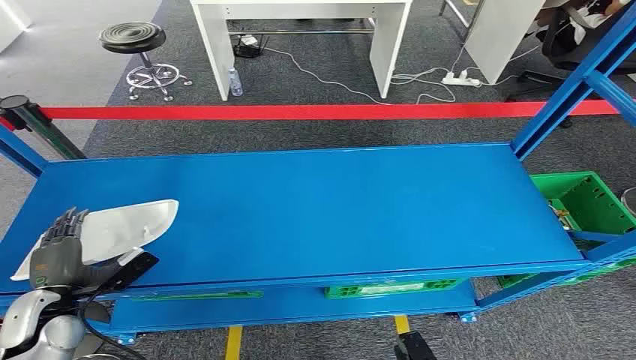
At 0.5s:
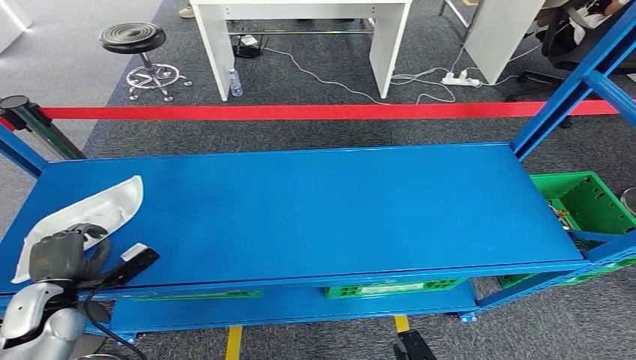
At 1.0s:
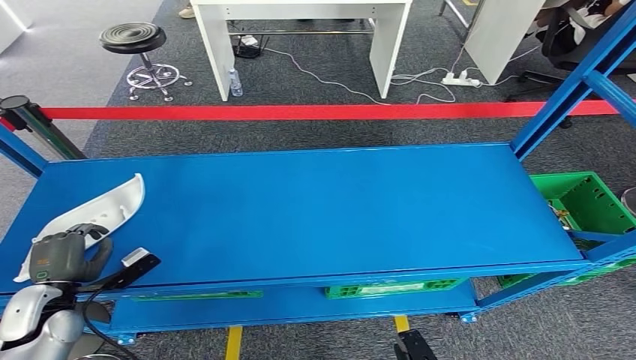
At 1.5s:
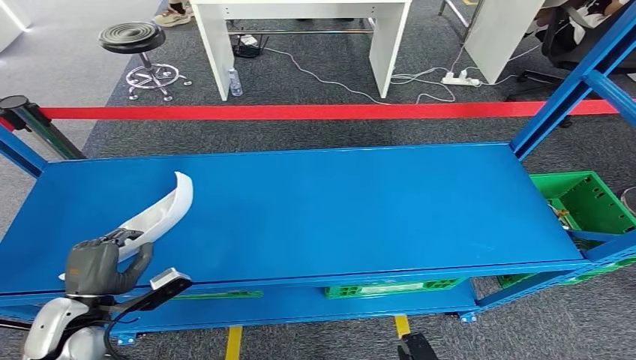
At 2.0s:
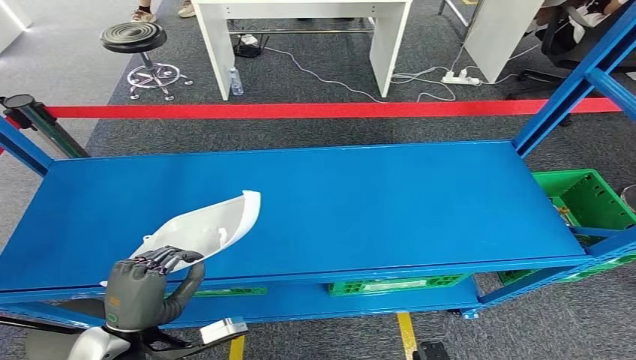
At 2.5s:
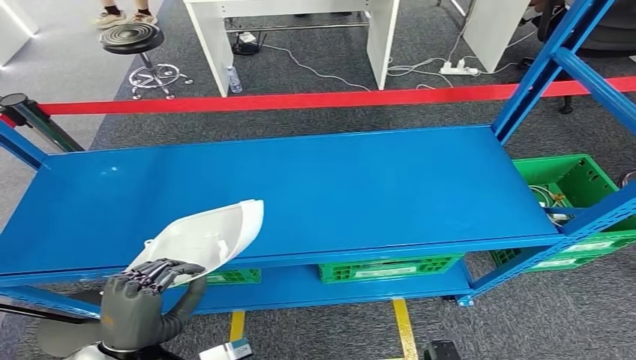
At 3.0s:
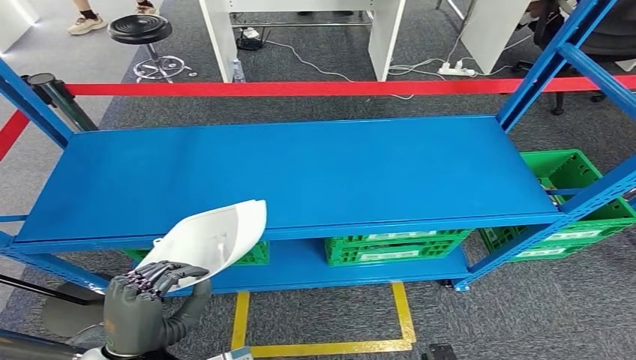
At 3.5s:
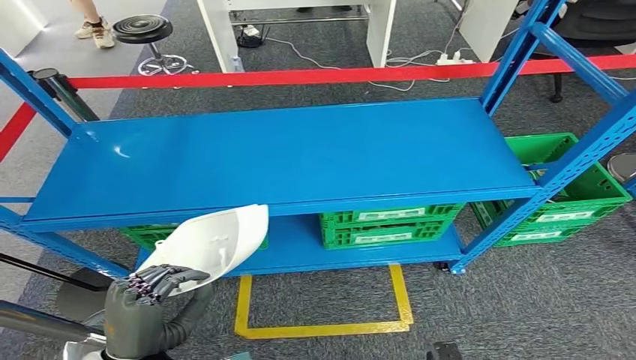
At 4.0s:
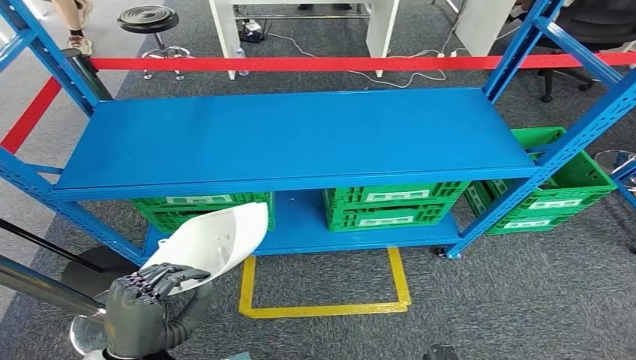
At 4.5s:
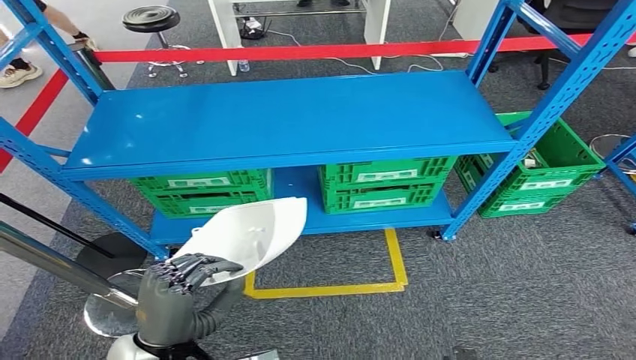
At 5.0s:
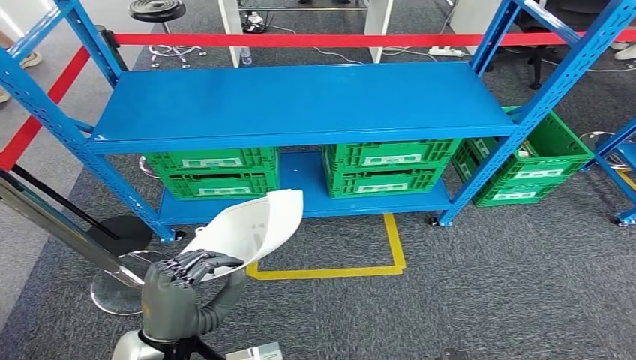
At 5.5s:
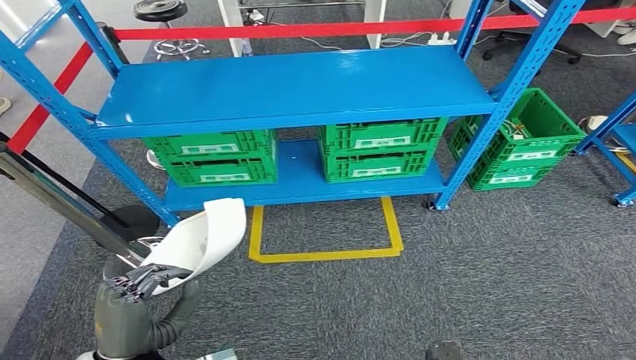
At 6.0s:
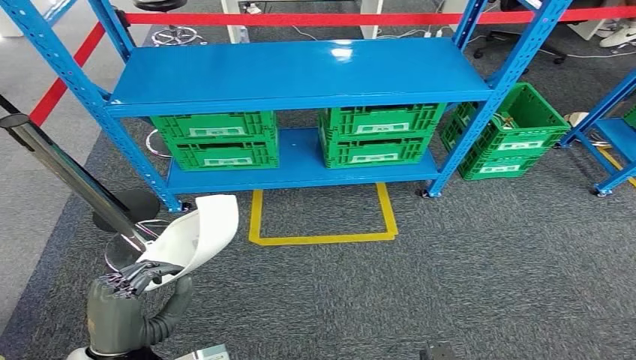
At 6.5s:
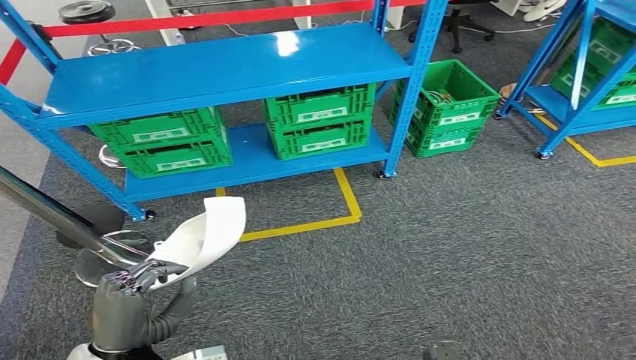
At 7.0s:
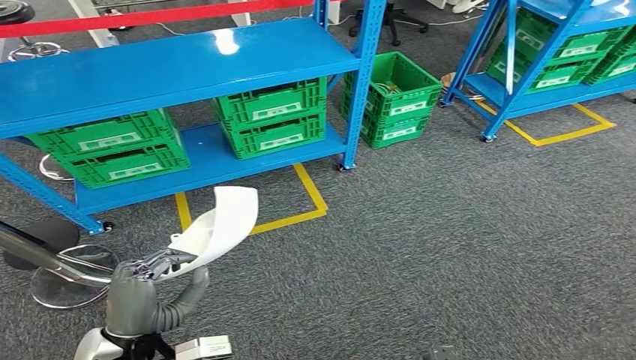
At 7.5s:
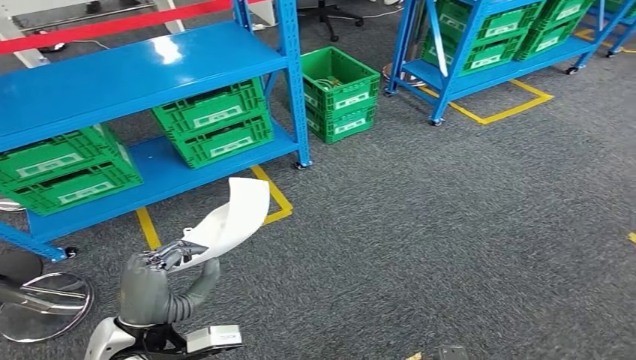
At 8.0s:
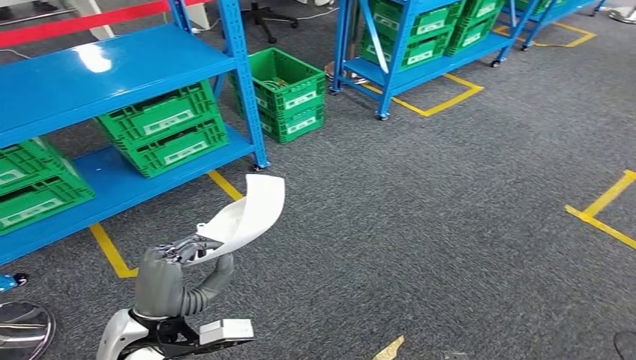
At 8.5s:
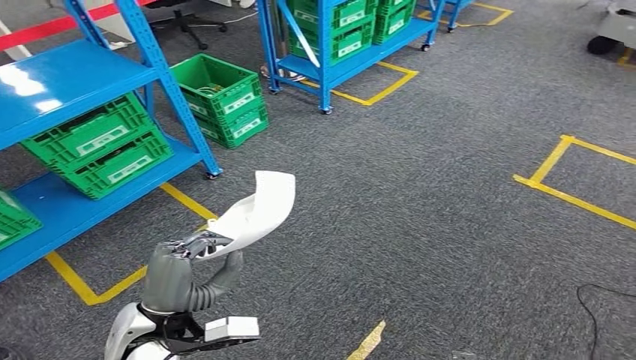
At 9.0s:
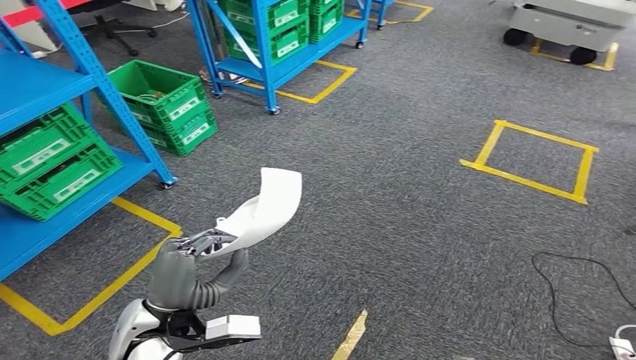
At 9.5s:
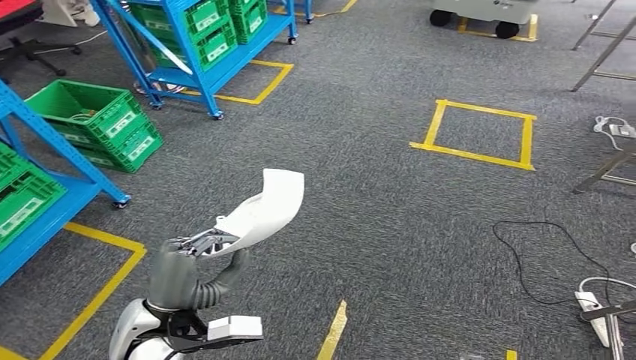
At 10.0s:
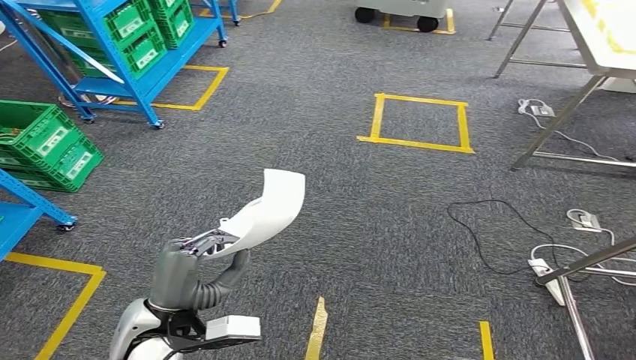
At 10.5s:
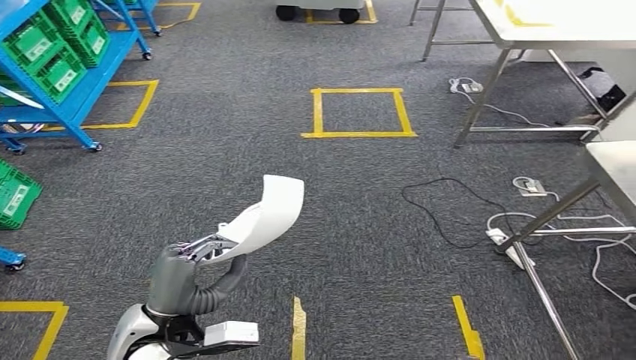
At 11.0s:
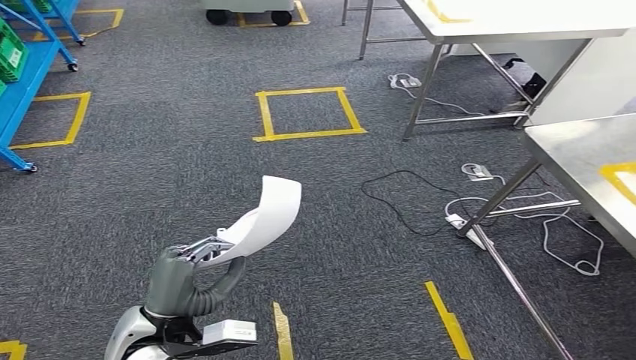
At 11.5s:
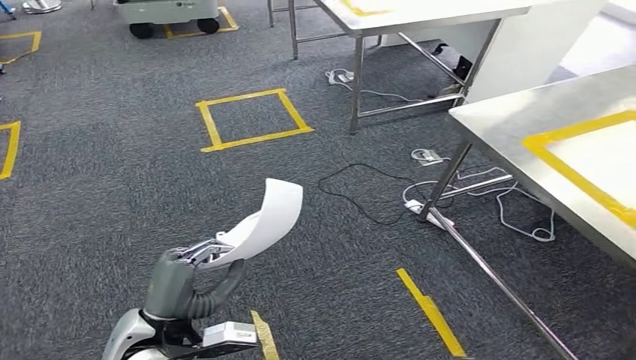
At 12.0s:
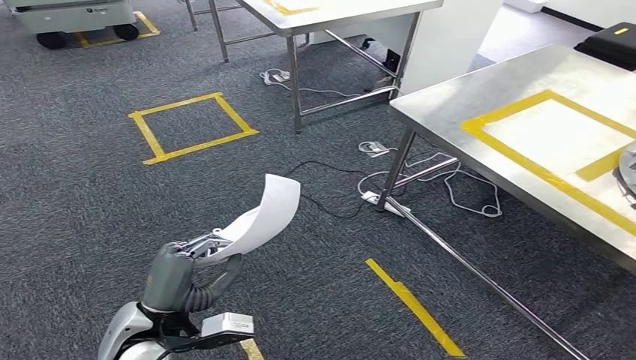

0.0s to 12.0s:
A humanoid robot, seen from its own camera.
Step, 0.0s to 4.0s: Pick up the small parts from the shelf.

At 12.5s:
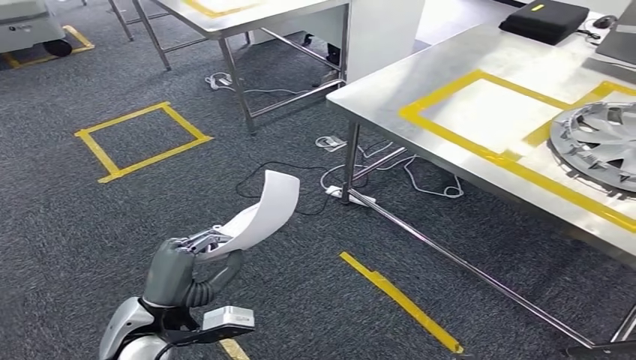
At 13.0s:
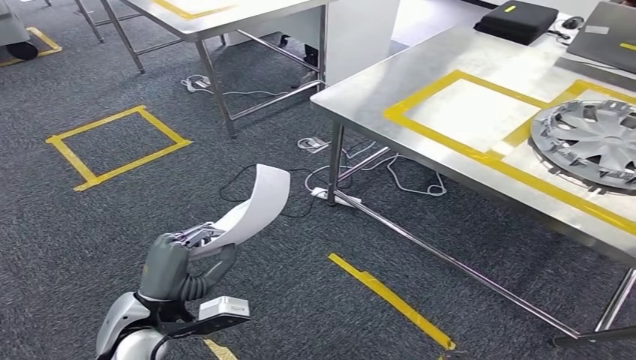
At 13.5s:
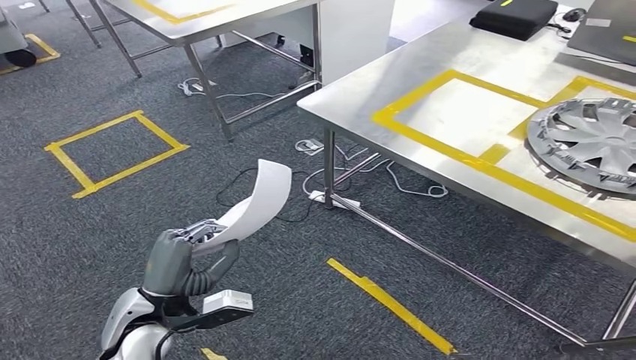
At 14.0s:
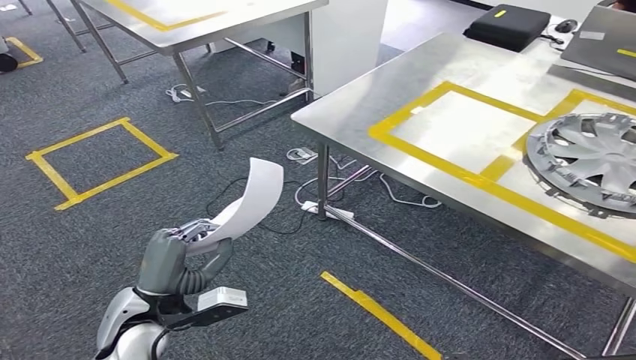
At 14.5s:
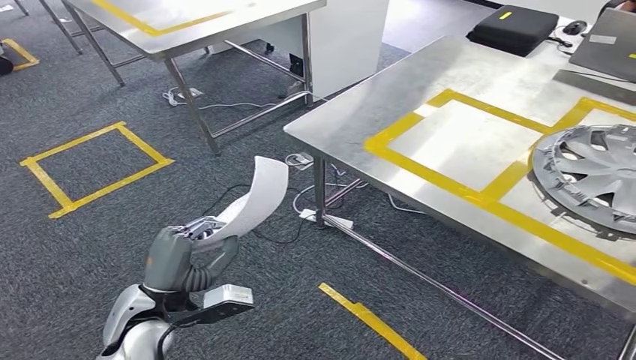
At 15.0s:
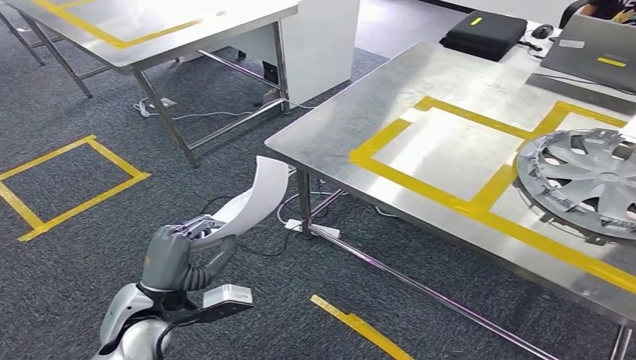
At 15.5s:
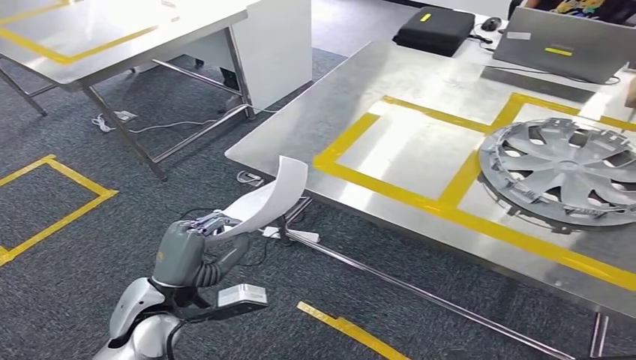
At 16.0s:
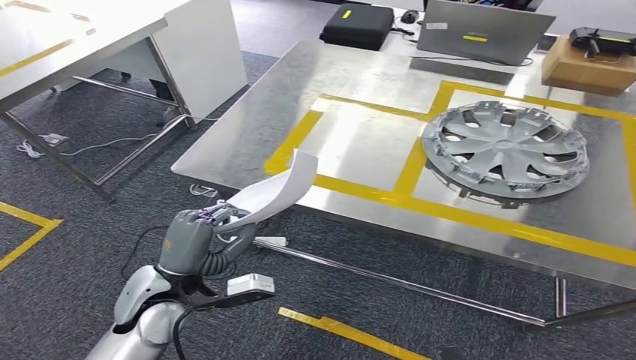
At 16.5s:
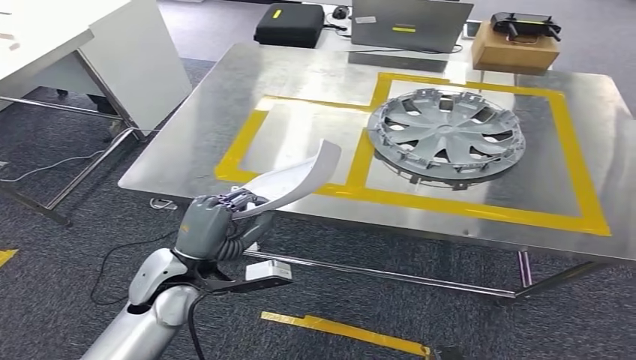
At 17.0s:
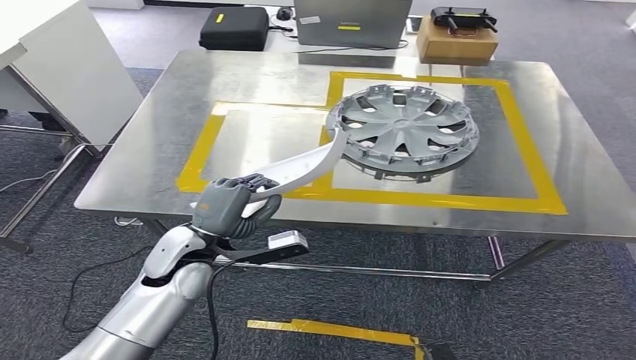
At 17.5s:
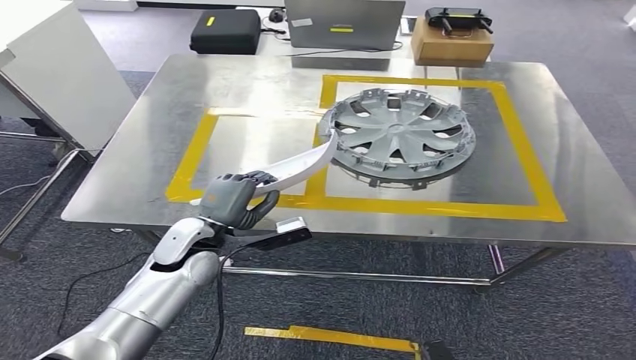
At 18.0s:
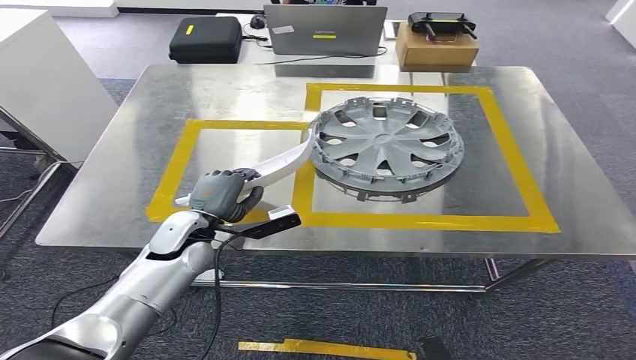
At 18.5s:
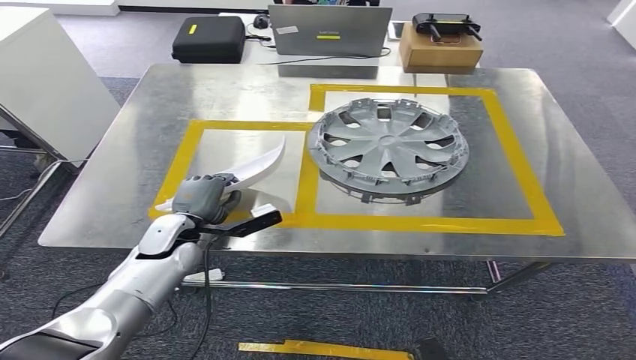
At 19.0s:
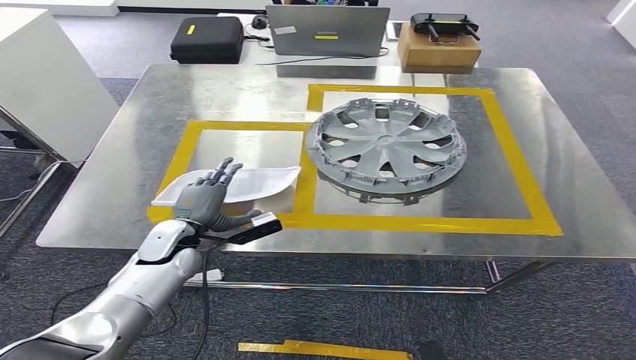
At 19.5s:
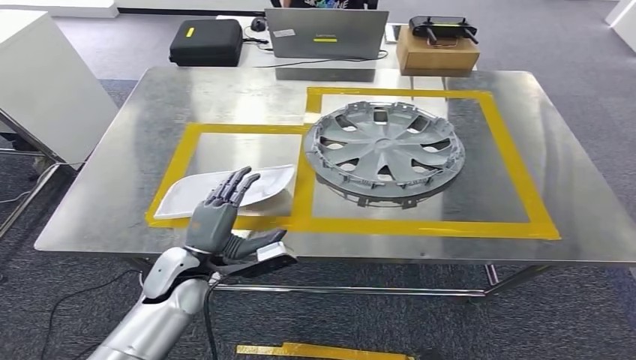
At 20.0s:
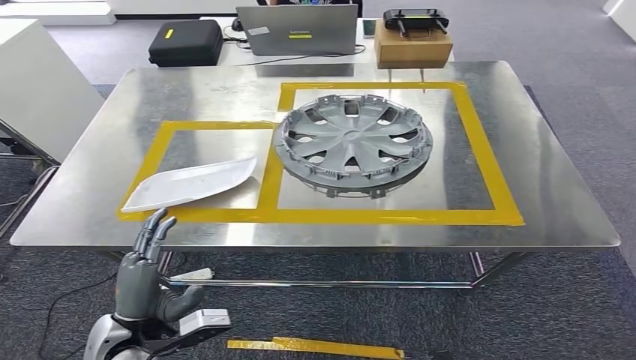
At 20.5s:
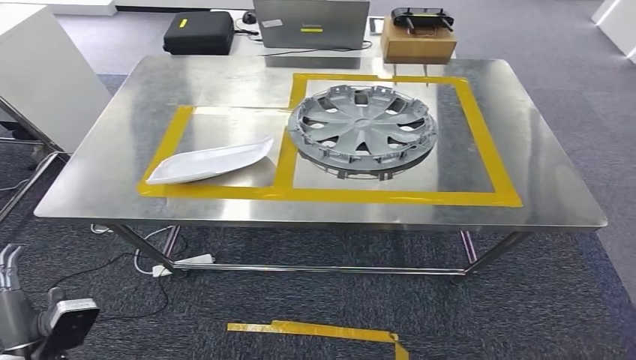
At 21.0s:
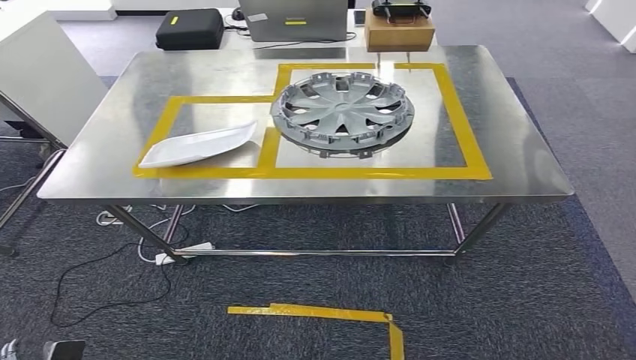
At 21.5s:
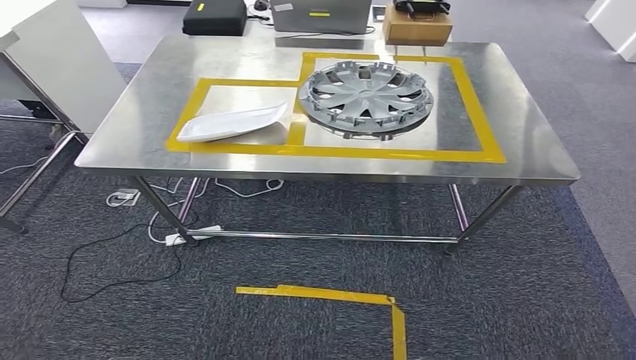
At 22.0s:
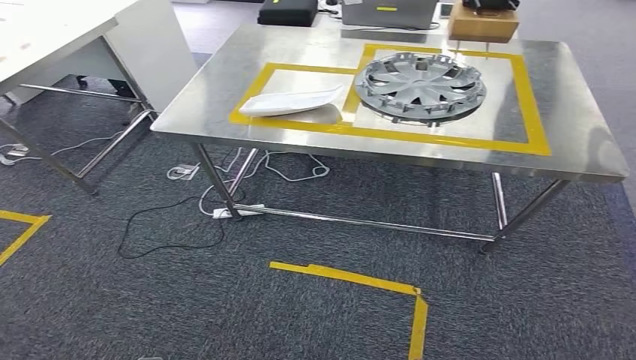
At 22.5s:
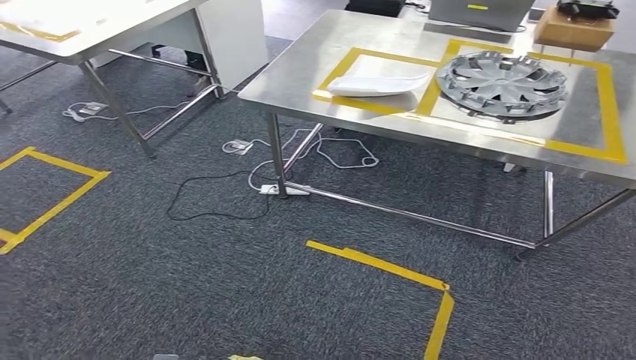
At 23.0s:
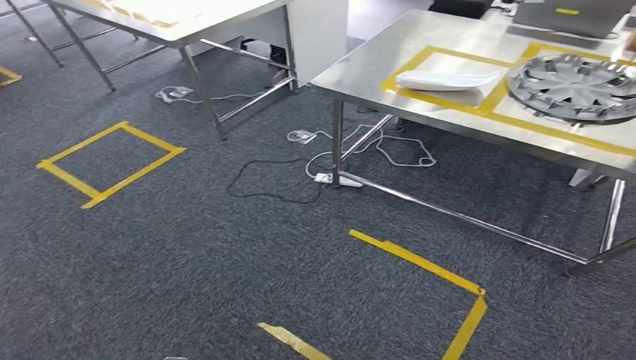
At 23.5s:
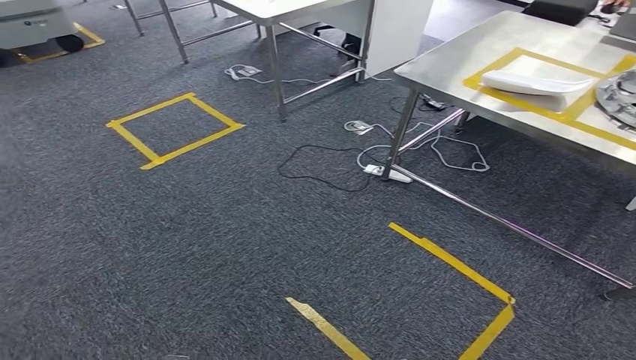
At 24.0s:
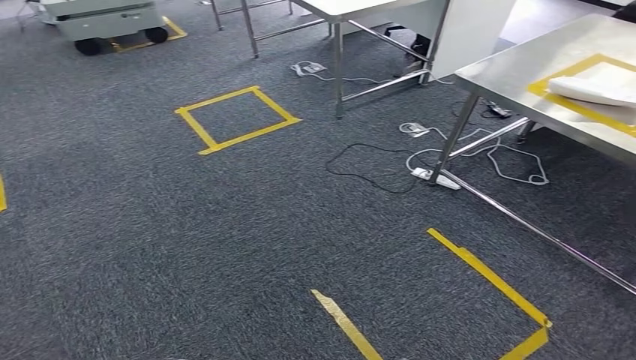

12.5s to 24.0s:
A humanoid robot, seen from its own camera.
Step, 12.5s to 16.0s: Move the small parts to the workbench.
Step, 16.5s to 21.0s: Insert the small parts into the corresponding holes on the workbench.
